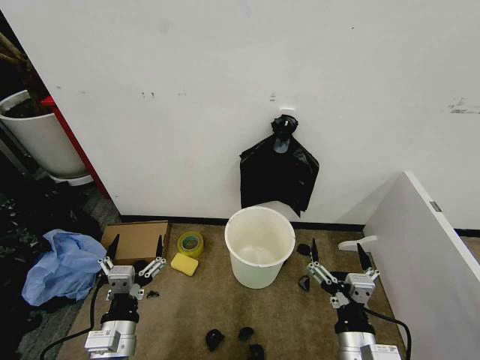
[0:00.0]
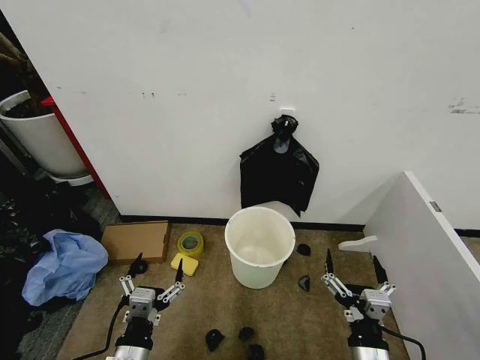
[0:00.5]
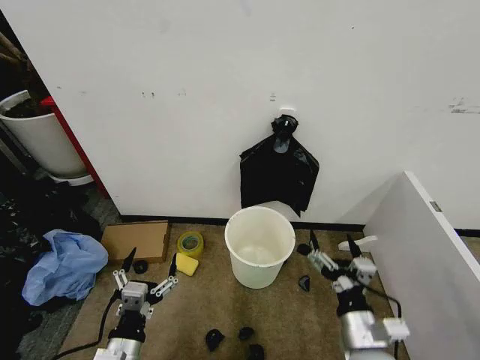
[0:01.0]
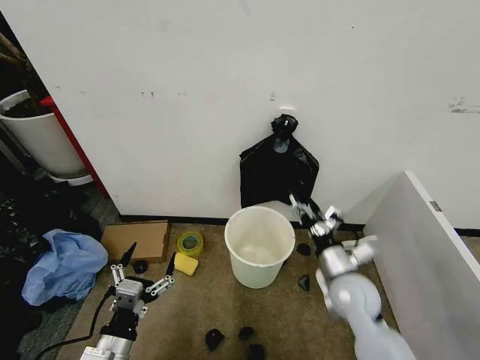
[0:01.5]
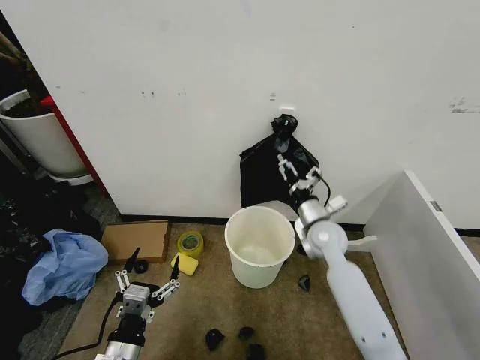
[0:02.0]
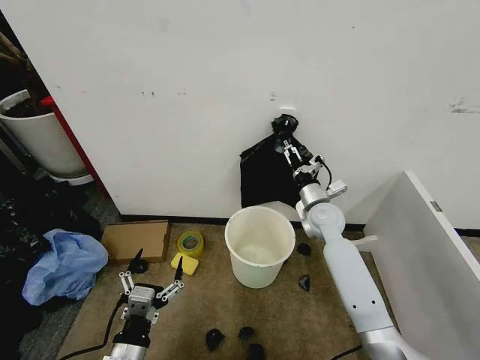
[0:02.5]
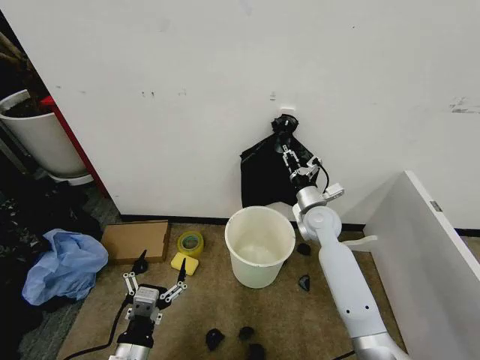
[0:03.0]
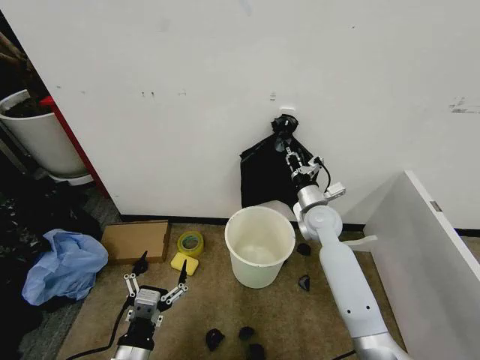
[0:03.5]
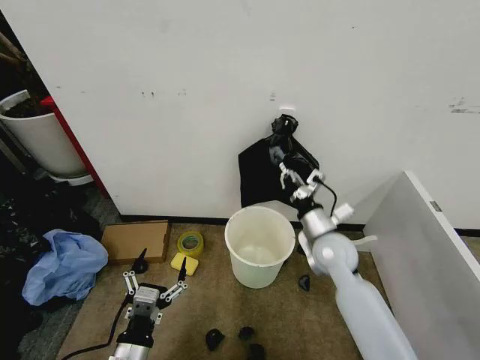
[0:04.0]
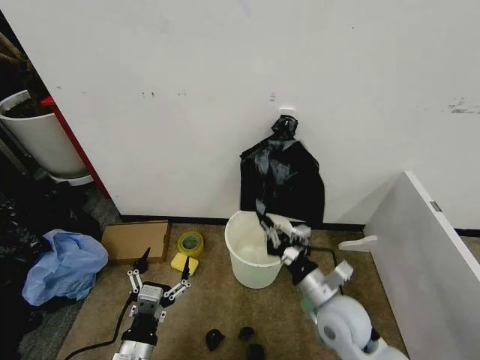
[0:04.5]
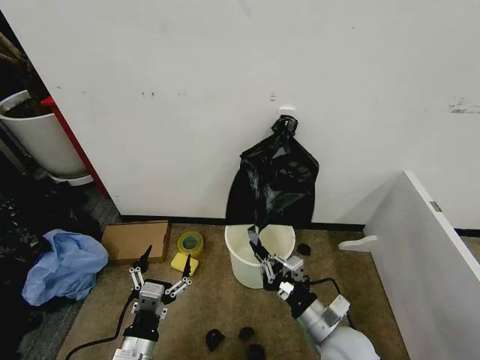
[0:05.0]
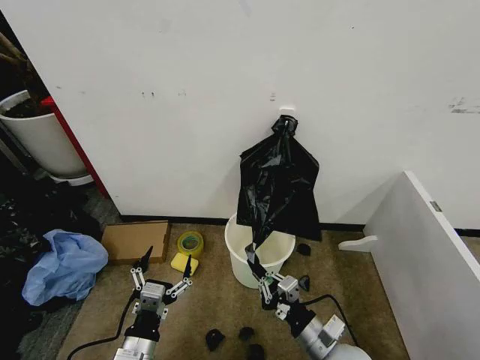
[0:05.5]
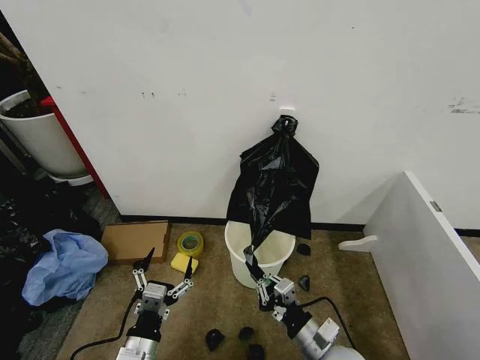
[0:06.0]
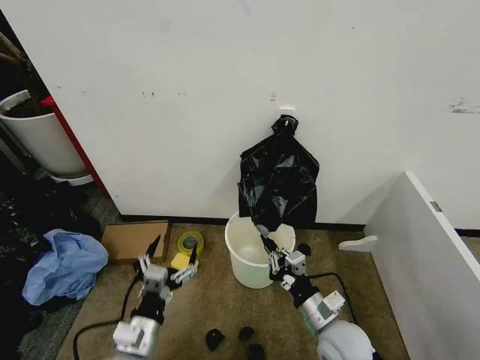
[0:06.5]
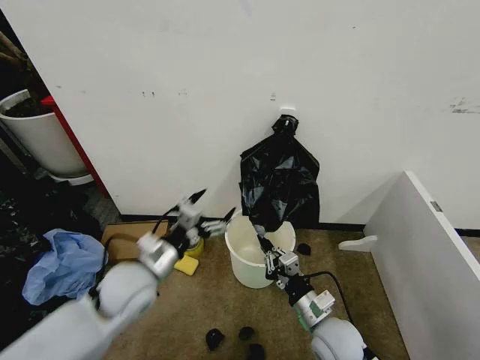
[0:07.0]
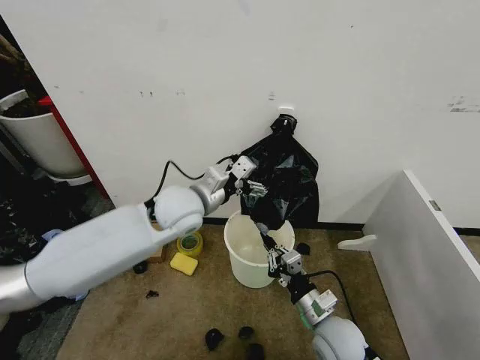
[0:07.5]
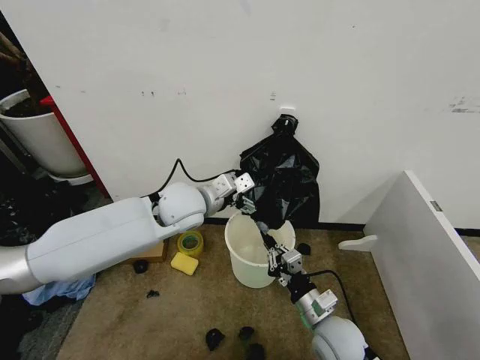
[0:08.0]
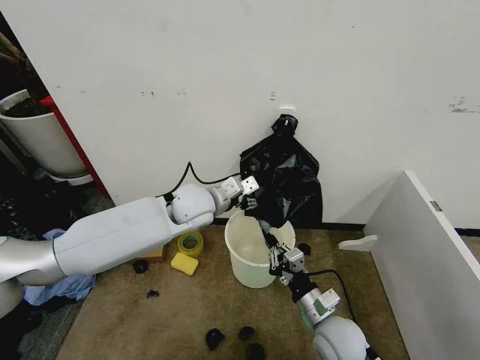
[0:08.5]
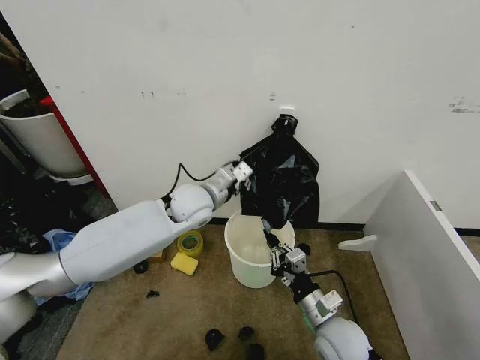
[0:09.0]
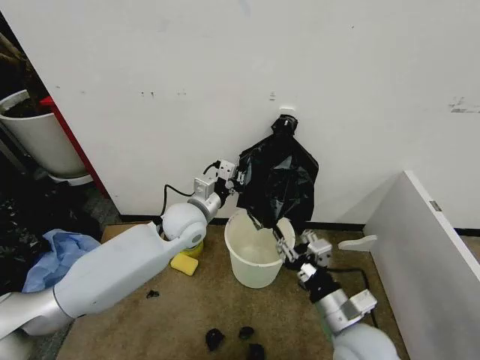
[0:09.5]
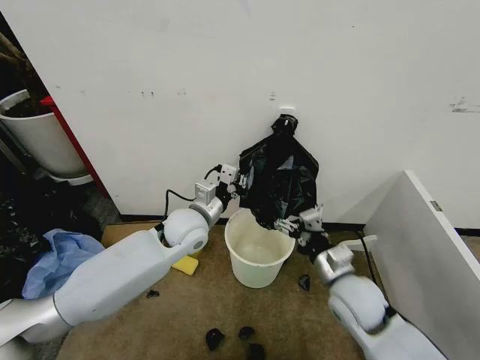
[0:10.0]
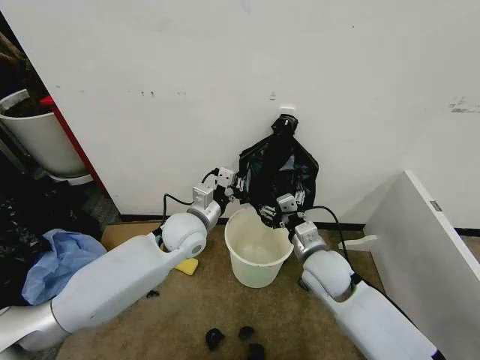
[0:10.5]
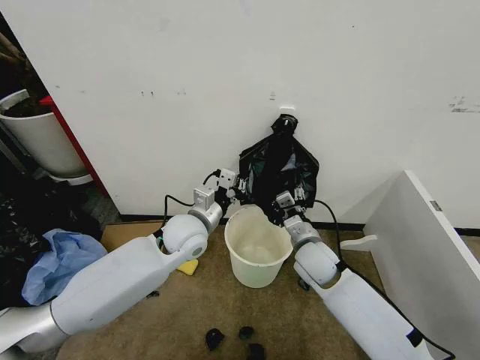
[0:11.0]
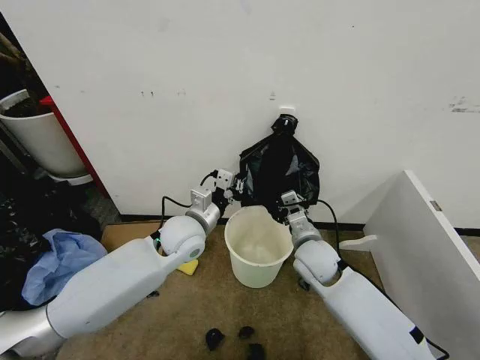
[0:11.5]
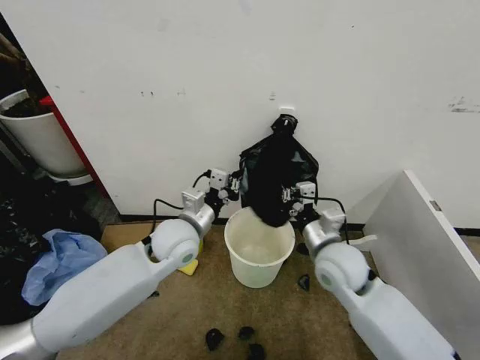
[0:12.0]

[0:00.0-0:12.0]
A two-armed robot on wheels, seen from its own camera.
Task of the whole recording: Place the garbage bag over the trash bin.
0:02.0 to 0:04.0: The right gripper is displaced backward by some 5 cm, and closes.
0:04.0 to 0:06.0: The right gripper travels backward and downward by roughly 20 cm.
0:06.0 to 0:08.0: The right gripper heads forward, covering some 5 cm. Meanwhile the left gripper travels forward and upward by some 35 cm.
0:08.0 to 0:10.0: The left gripper is displaced downward by some 5 cm, and closes its fingers. The right gripper shifts some 10 cm upward and forward, and opens.
0:10.0 to 0:12.0: The right gripper closes.

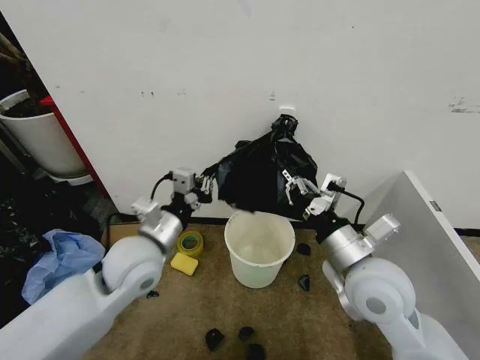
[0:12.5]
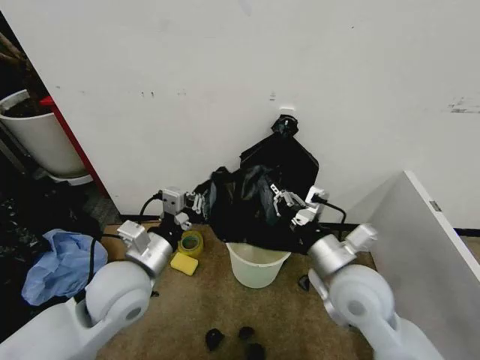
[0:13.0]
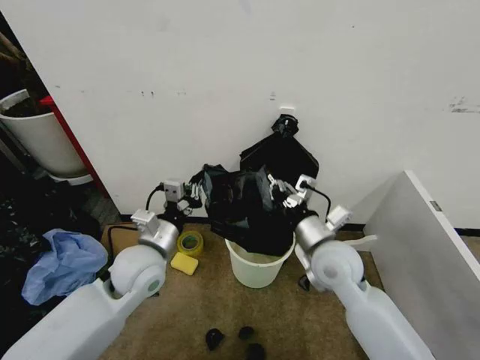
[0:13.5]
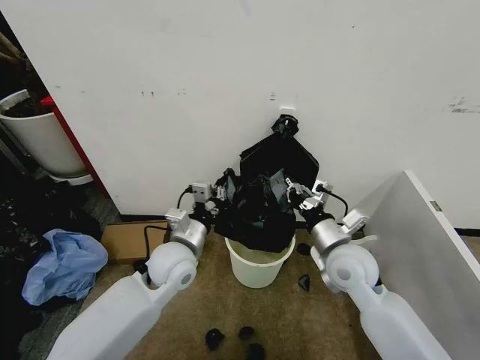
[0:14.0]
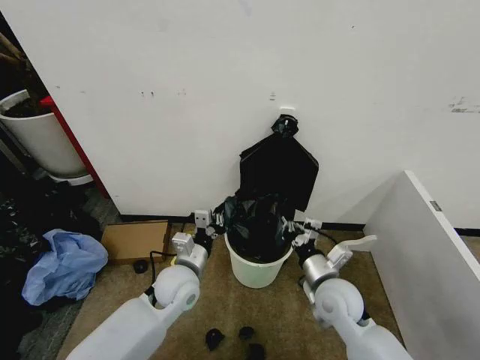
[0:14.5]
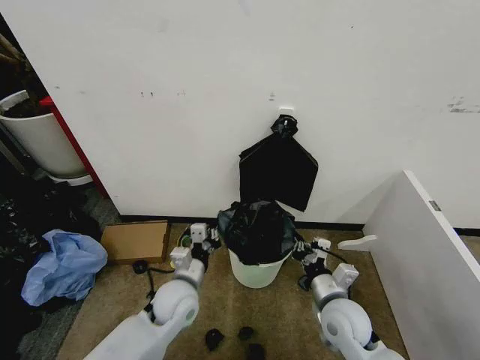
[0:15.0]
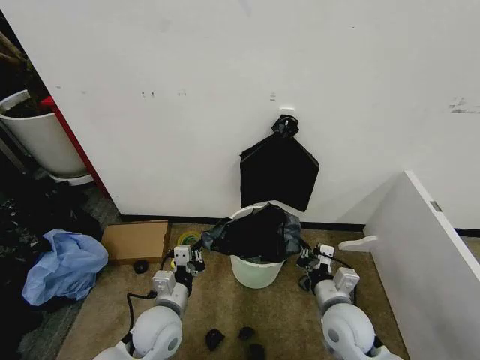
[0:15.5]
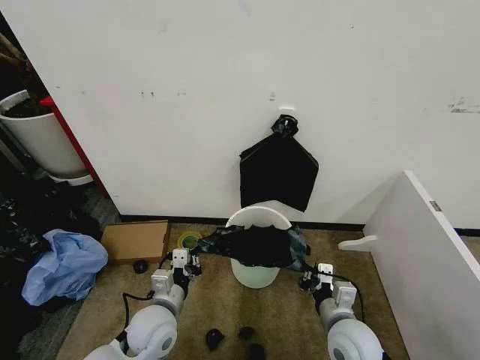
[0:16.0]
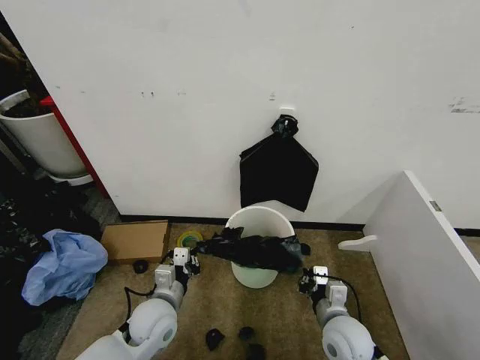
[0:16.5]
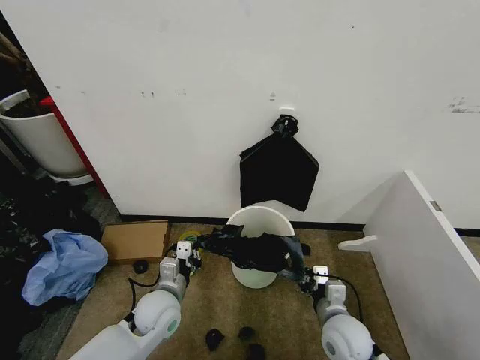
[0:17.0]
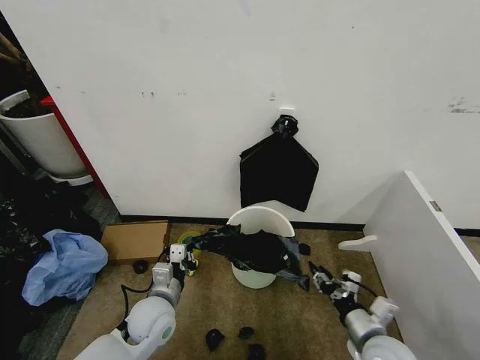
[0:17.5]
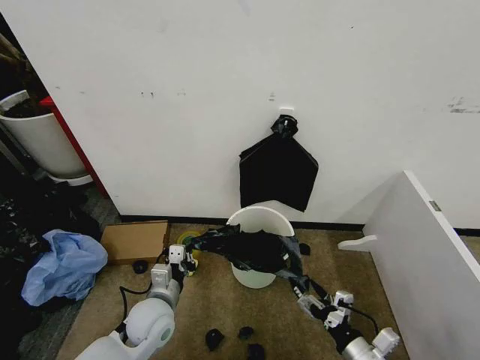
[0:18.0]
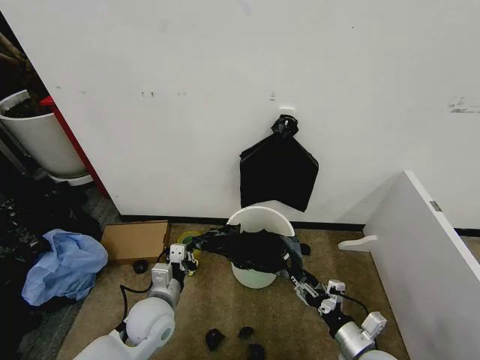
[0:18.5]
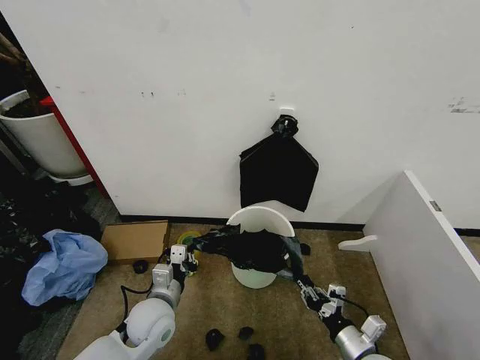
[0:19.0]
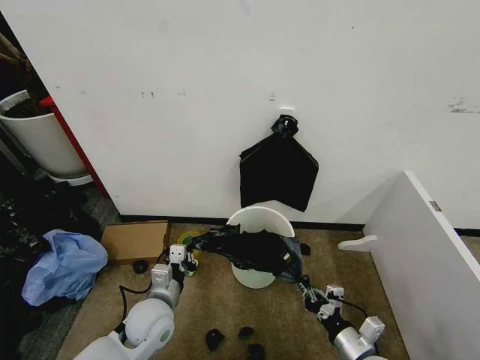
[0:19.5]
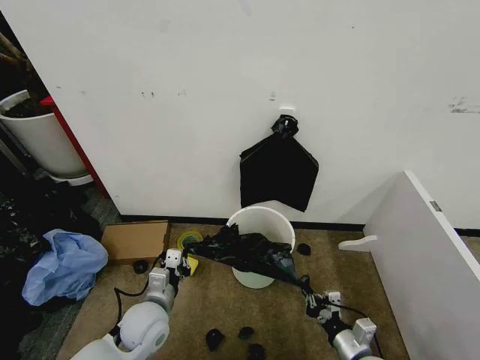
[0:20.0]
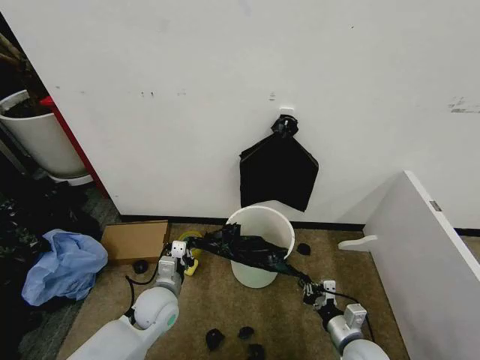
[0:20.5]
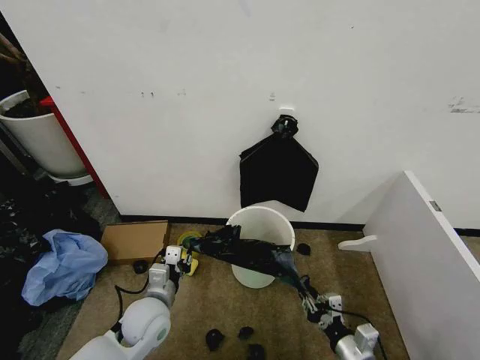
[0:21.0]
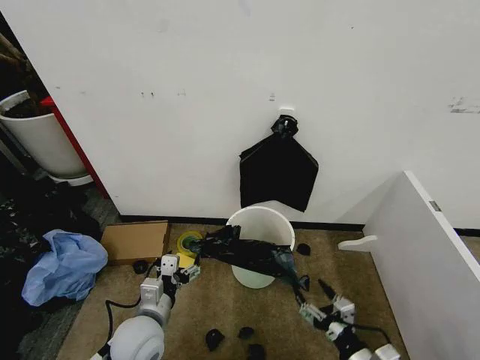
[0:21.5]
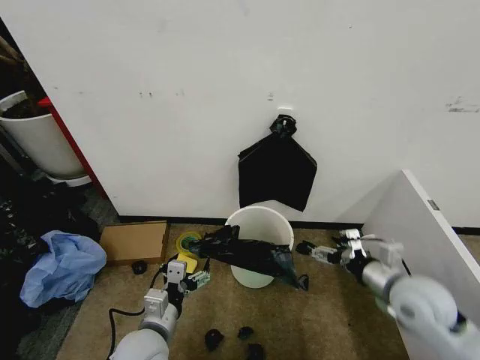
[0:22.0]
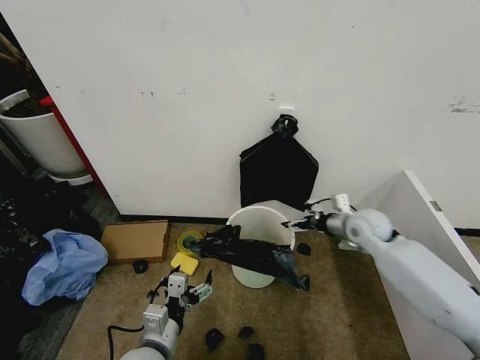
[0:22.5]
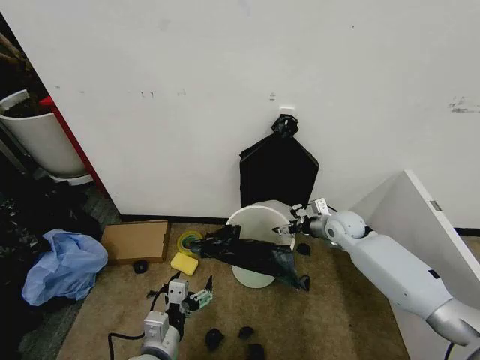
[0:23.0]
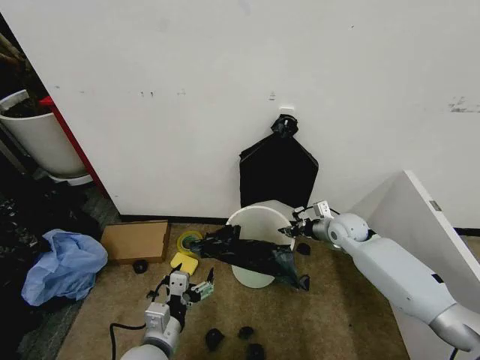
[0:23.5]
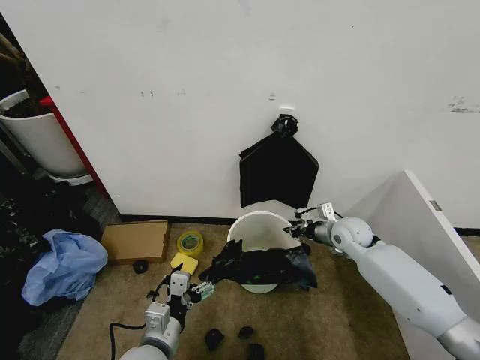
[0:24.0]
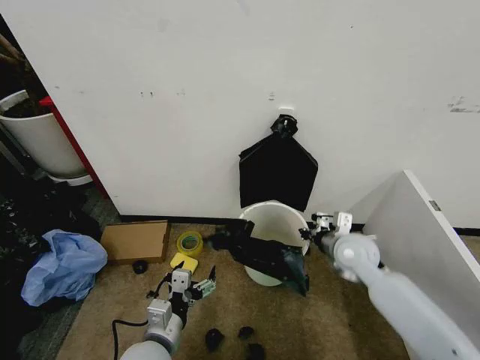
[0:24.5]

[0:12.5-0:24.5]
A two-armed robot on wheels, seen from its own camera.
Task of the whole recording: Place the garbage bag over the trash bin.
0:12.5 to 0:14.5: Both grippers travel together downward, about 15 cm.
0:14.5 to 0:16.5: The left gripper shifts about 5 cm backward. Meanwhile the right gripper moves backward and downward, approximately 10 cm.
0:16.5 to 0:18.5: The right gripper moves to the right and backward, roughly 10 cm, and opens.
0:18.5 to 0:20.5: The right gripper closes its fingers.
0:20.5 to 0:22.5: The right gripper moves forward and upward, some 30 cm, and opens; the left gripper travels backward by about 15 cm, and opens its fingers.
0:22.5 to 0:24.5: The right gripper moves about 5 cm, and closes.

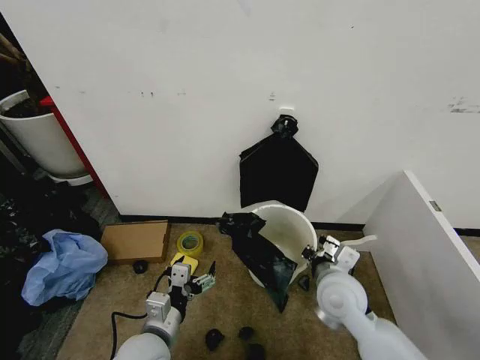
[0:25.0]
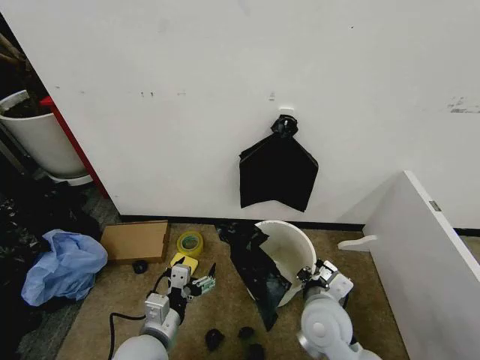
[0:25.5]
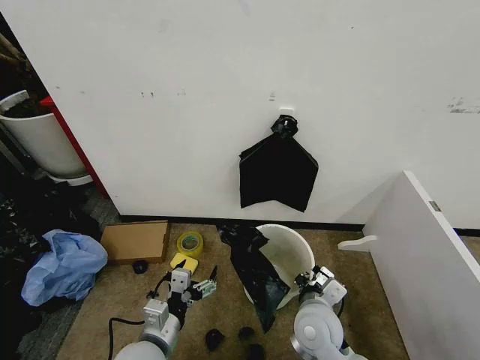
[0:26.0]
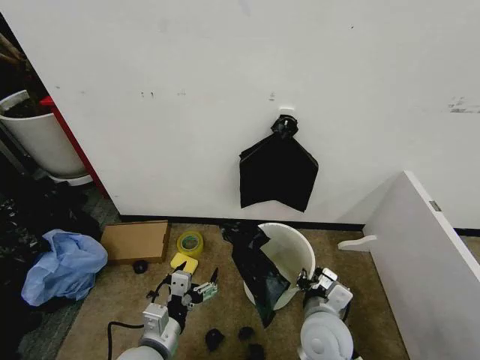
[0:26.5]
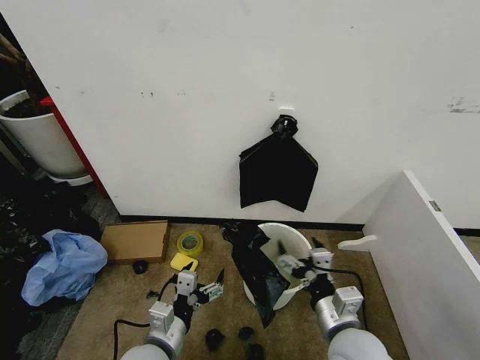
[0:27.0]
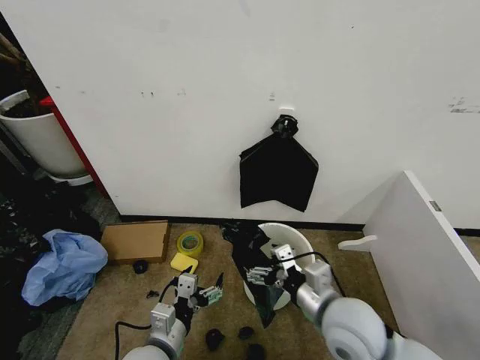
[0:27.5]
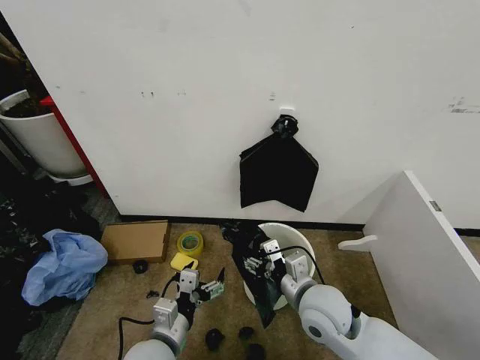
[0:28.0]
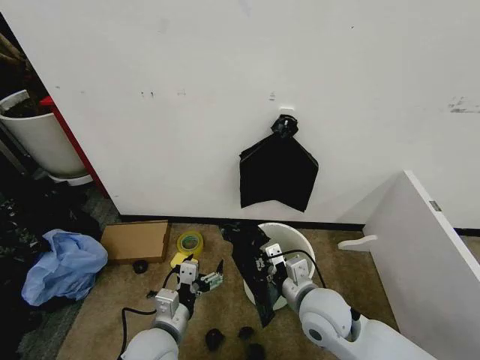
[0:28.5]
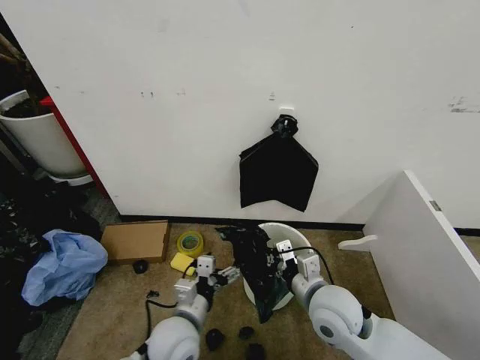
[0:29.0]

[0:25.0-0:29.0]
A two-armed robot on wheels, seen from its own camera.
Task of the whole recording: Place the garbage bag over the trash bin.
0:25.0 to 0:27.0: The right gripper moves backward, some 10 cm, and opens its fingers.
0:27.0 to 0:29.0: The grippers both shift forward by about 5 cm. The right gripper closes up.
